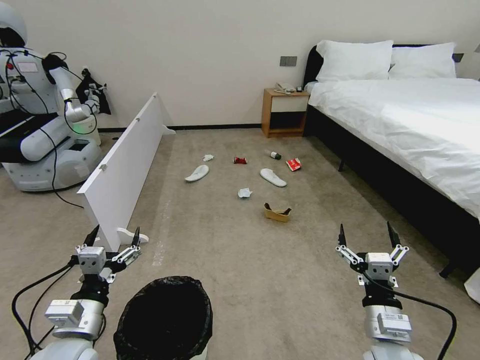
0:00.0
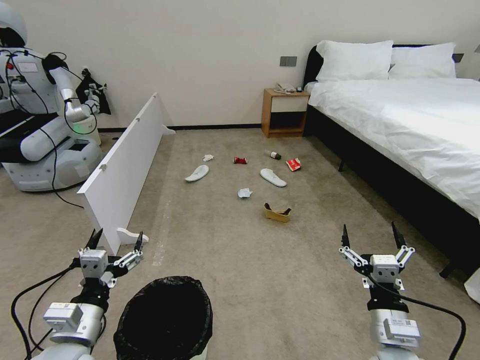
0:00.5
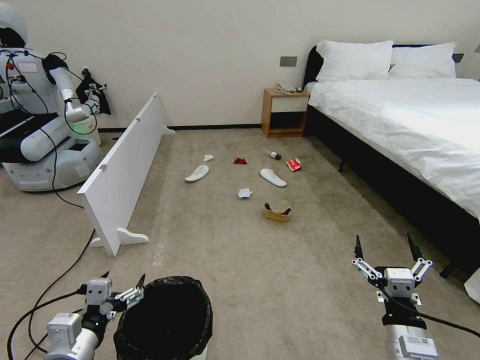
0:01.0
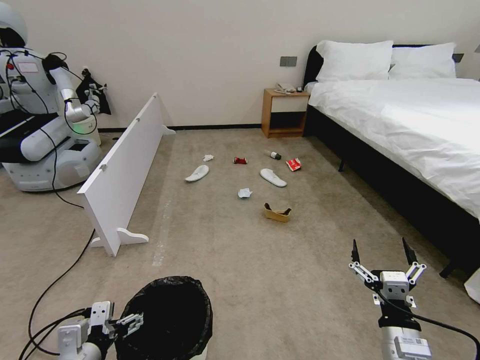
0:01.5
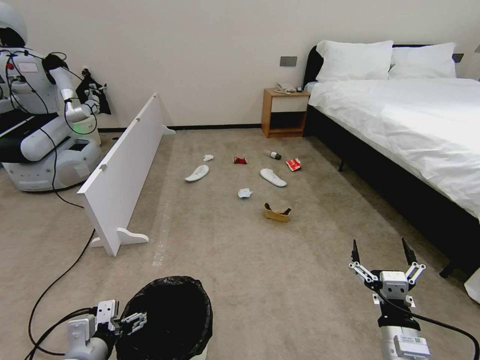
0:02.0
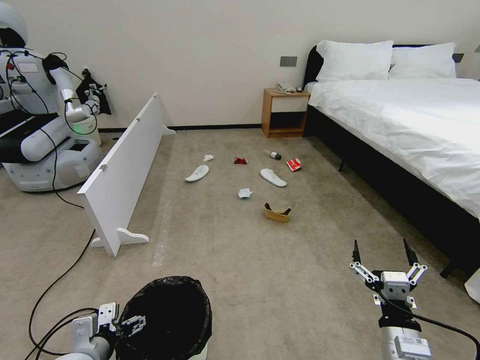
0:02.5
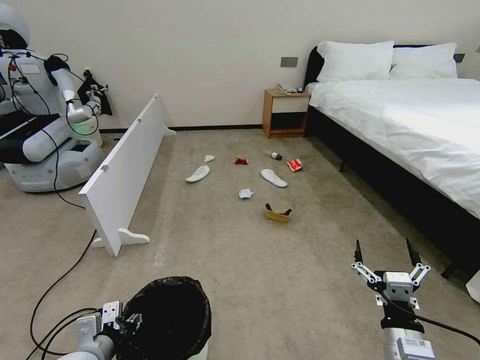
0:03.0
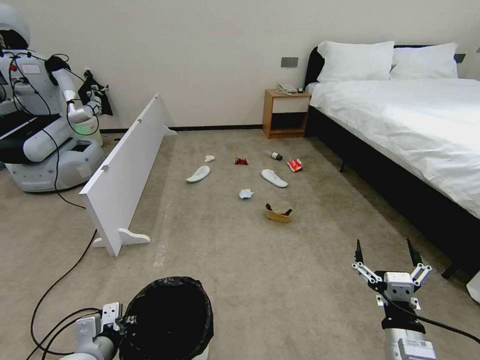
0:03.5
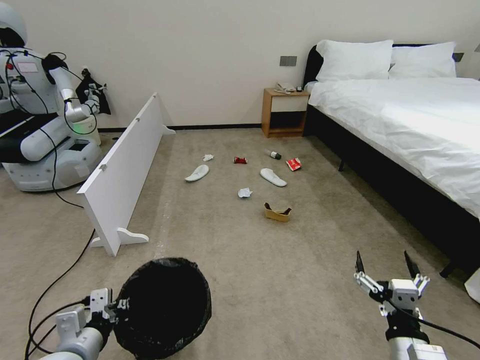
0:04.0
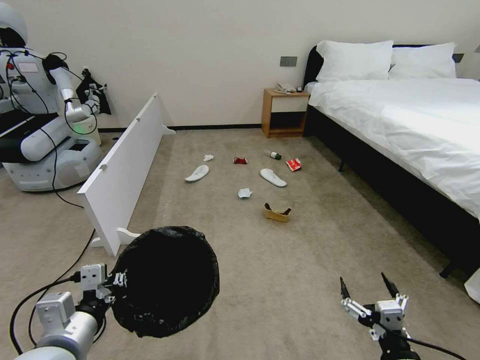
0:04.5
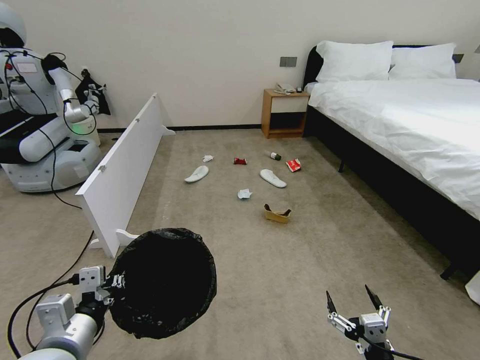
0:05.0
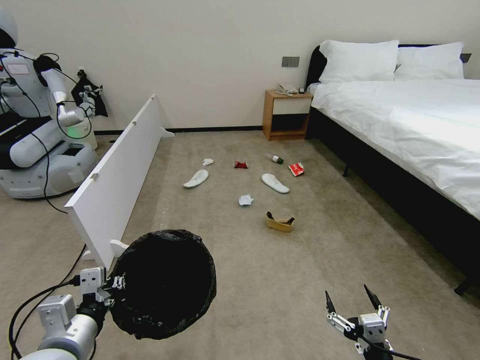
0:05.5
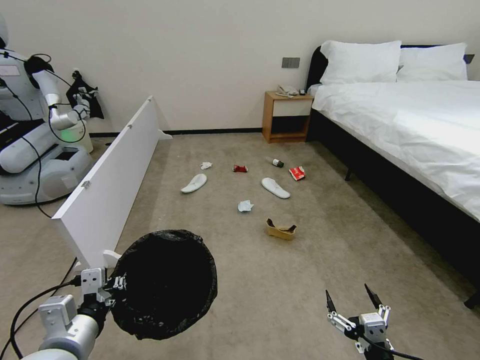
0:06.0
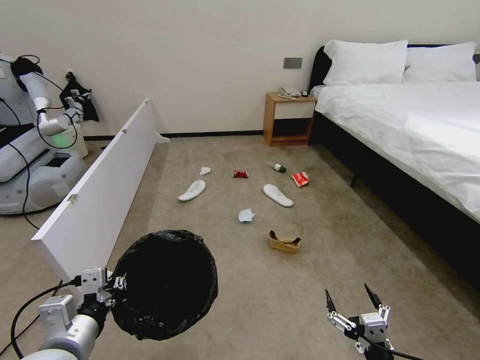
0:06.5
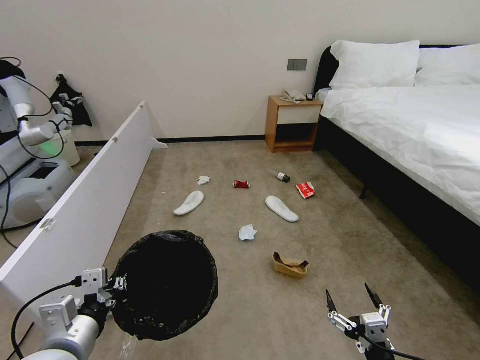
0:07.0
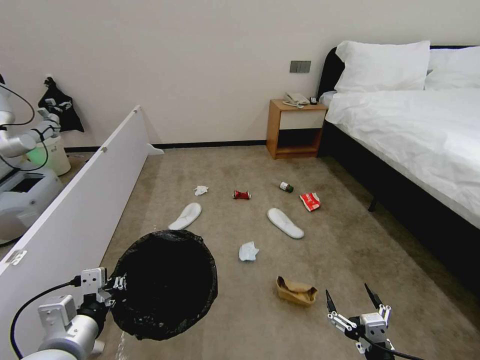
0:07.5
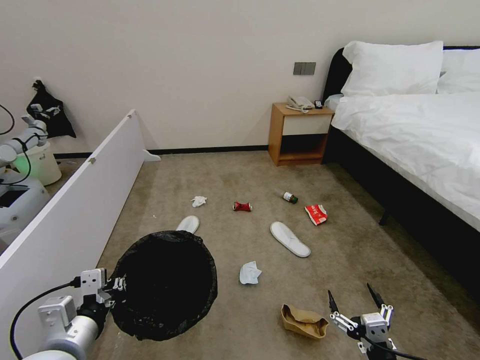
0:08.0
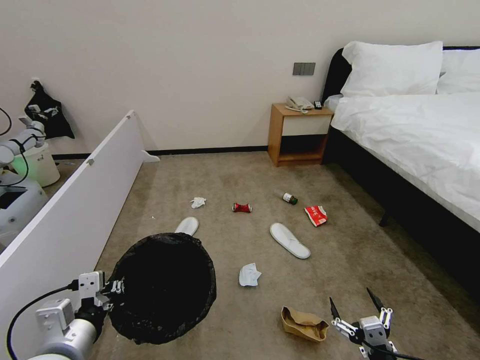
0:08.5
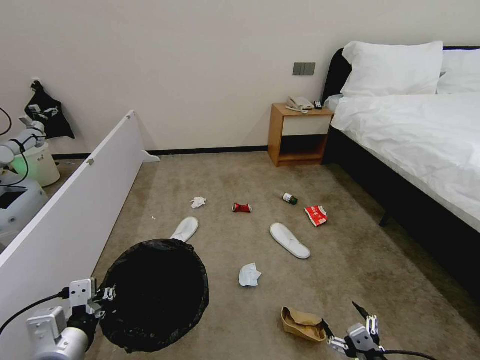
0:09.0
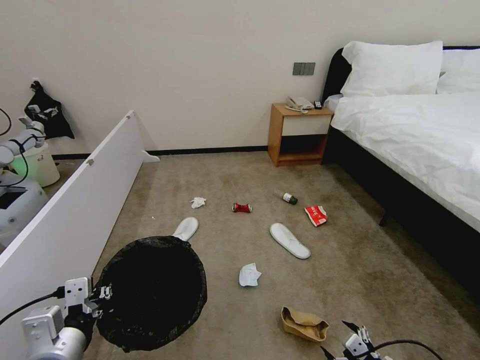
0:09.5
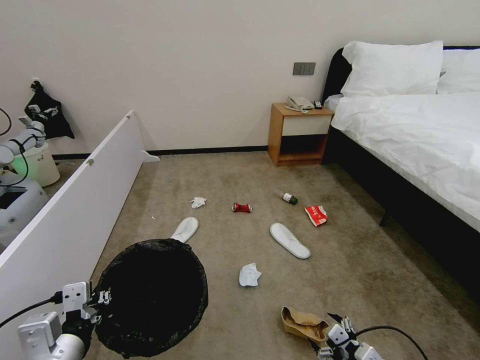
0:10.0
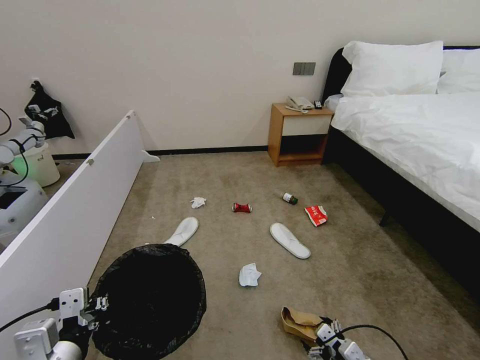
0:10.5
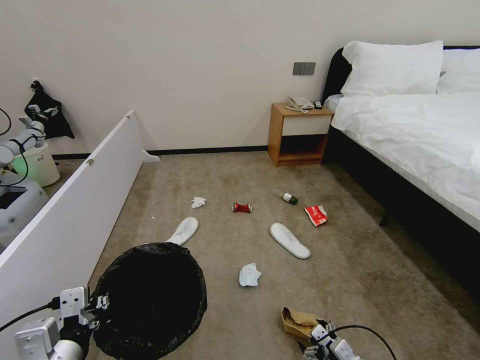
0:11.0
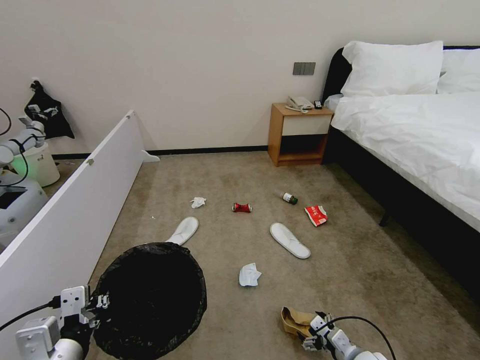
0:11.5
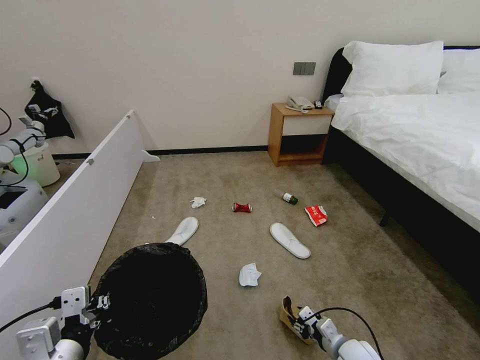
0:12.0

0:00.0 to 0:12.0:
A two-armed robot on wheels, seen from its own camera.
Task of the whole recording: Pick up the trash bin, then pick up the garbage from the floor and place it into the trash bin.
0:02.0 to 0:04.0: The left gripper closes.
0:04.0 to 0:06.0: The right gripper shifts some 5 cm downward, while the left gripper is displaced upward by approximately 5 cm.
0:08.0 to 0:10.0: The right gripper is displaced forward and to the right by approximately 10 cm.
0:10.0 to 0:12.0: The right gripper goes about 15 cm forward and downward, and closes.

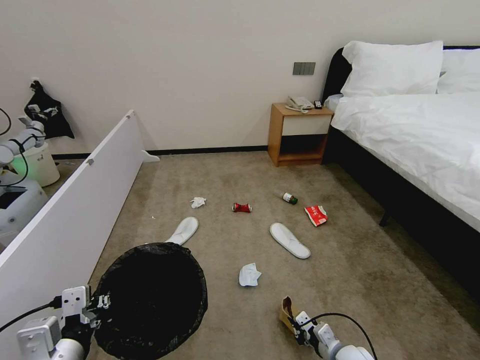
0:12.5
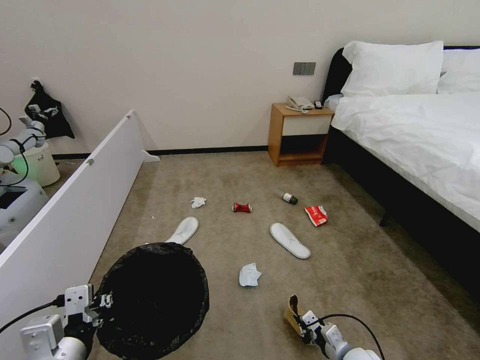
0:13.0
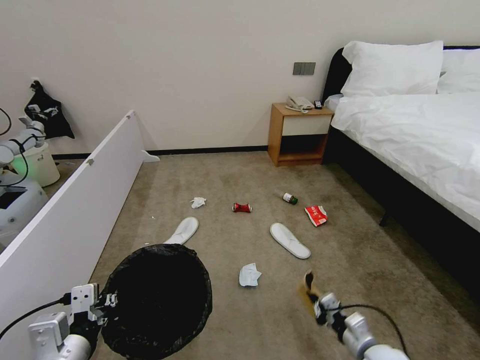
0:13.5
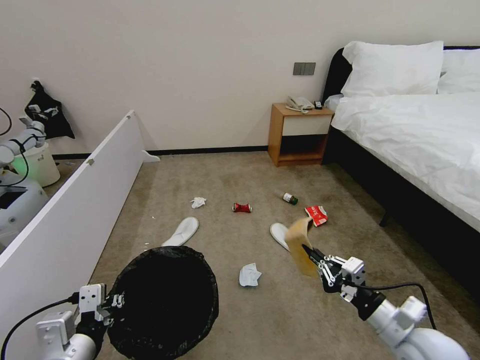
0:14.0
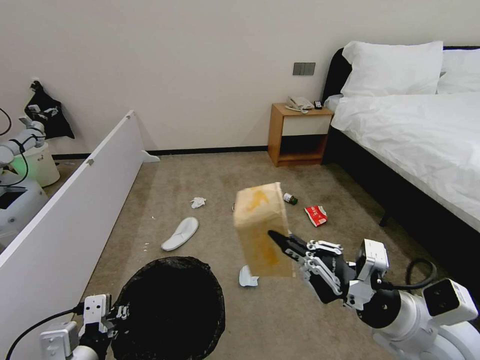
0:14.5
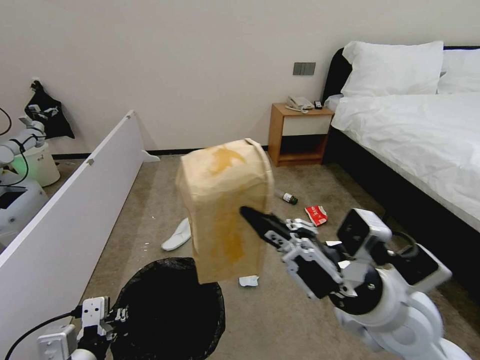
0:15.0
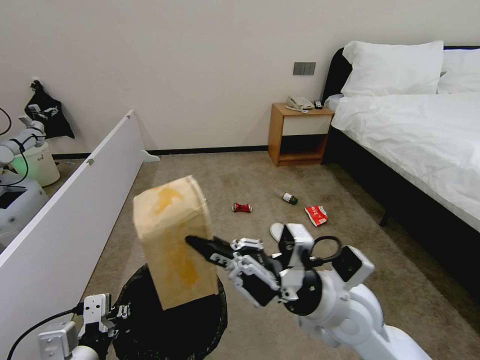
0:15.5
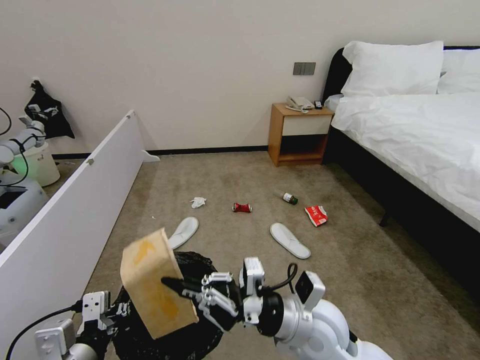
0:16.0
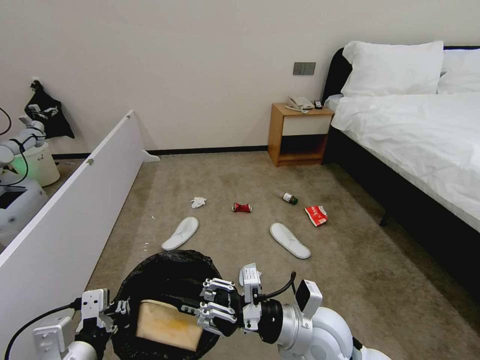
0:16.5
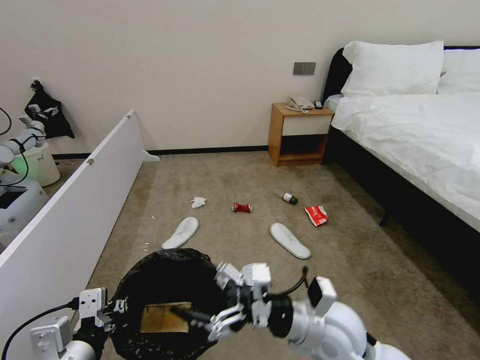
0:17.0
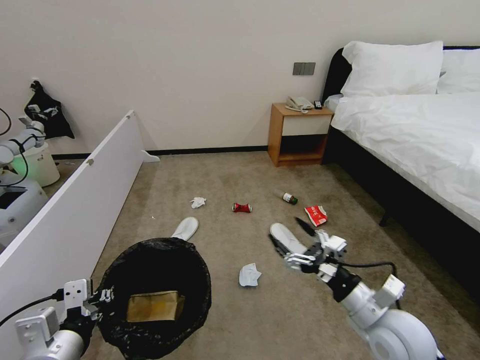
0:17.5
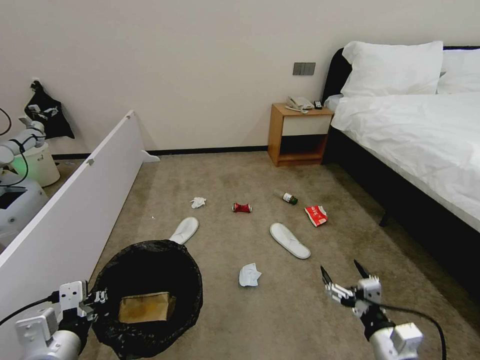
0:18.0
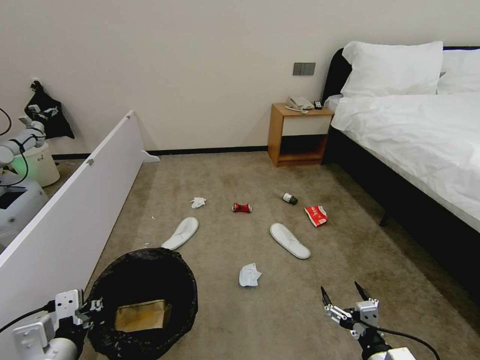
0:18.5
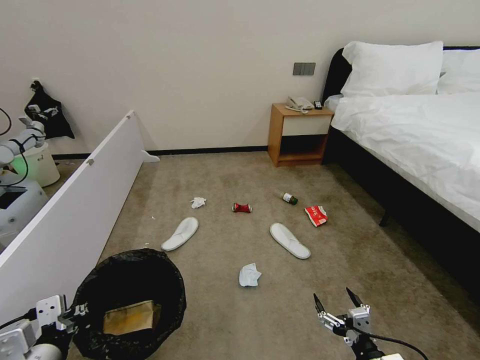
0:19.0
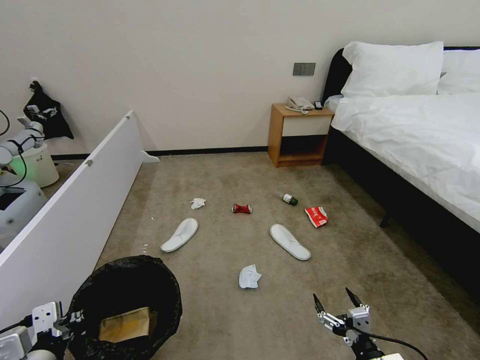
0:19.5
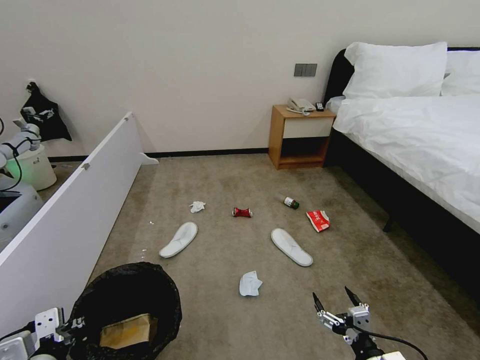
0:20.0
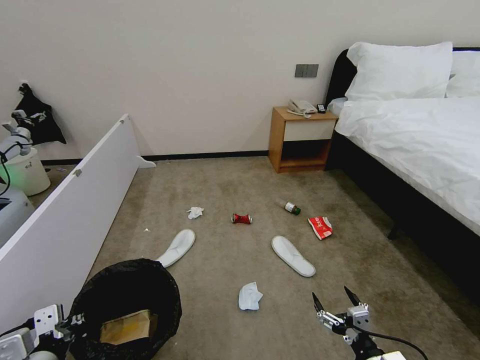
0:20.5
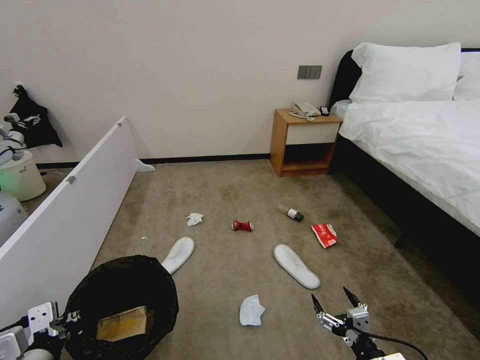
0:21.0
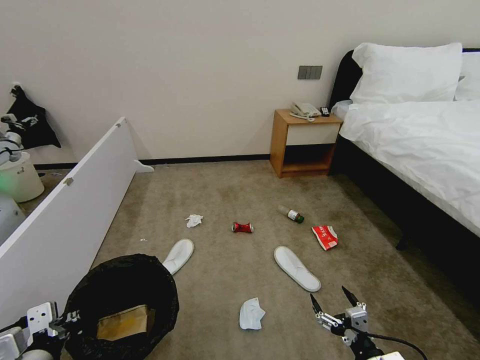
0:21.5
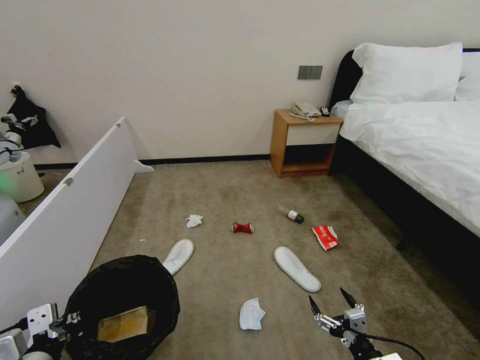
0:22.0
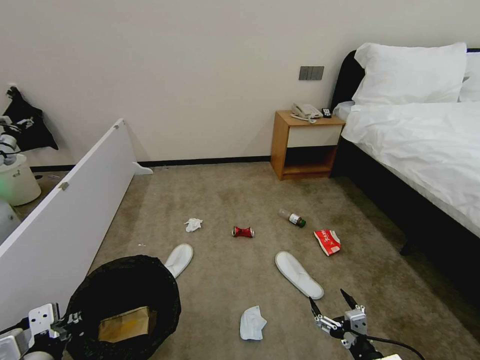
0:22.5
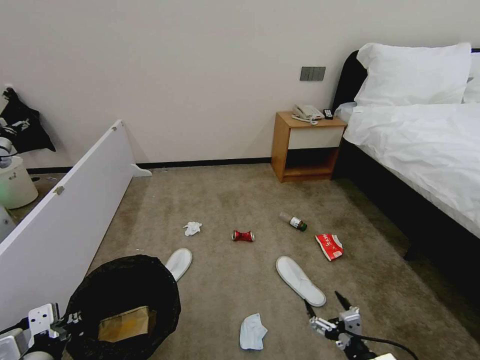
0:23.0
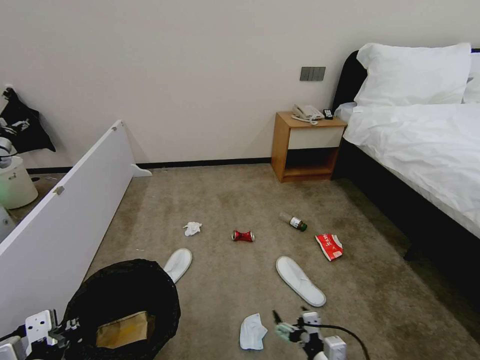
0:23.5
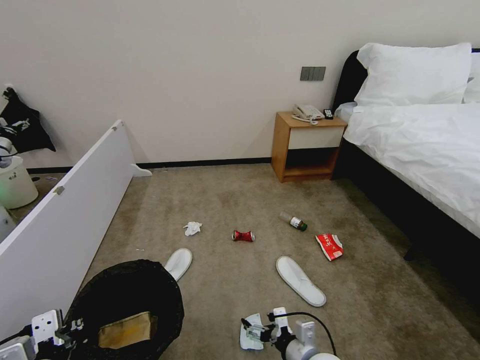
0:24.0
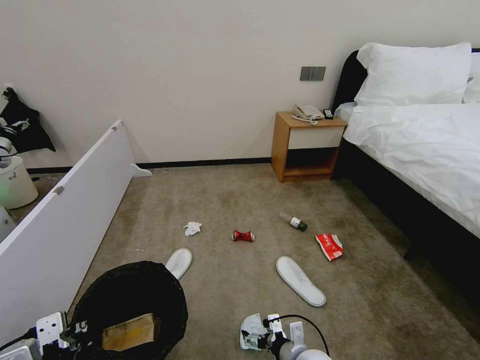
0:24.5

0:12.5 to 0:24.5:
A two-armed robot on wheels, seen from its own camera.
Task of the whole recording: Pick up the trash bin, then pick up the garbage from the floor and place it into the trash bin.
0:12.5 to 0:14.5: The right gripper is displaced upward by about 30 cm.
0:14.5 to 0:16.5: The right gripper travels to the left and downward by some 15 cm, and opens.
0:16.5 to 0:18.5: The right gripper goes some 20 cm to the right, downward and backward, and opens its fingers.
0:18.5 to 0:20.5: The grippers make only small movements.
0:20.5 to 0:22.5: Both grippers stay about where they are.
0:22.5 to 0:24.5: The right gripper shifts about 15 cm to the left and forward.

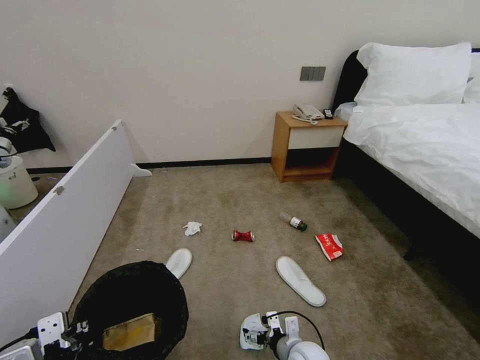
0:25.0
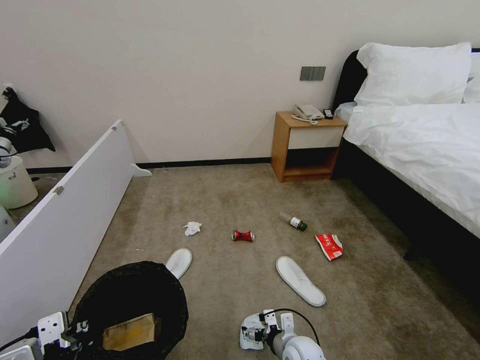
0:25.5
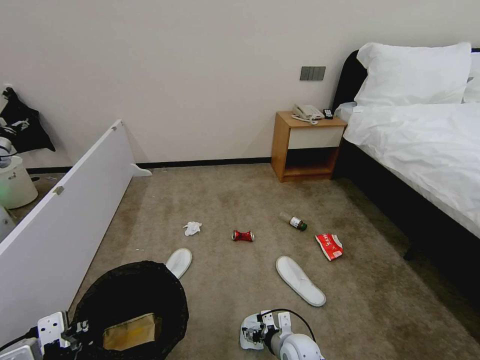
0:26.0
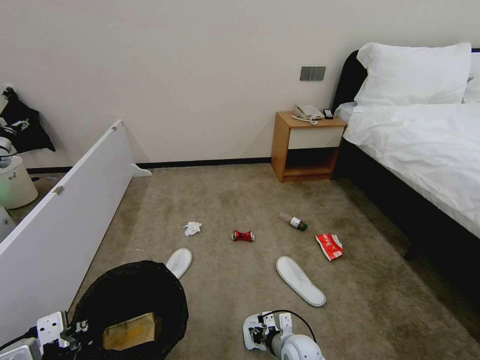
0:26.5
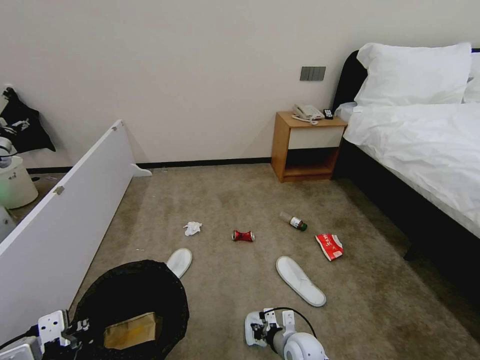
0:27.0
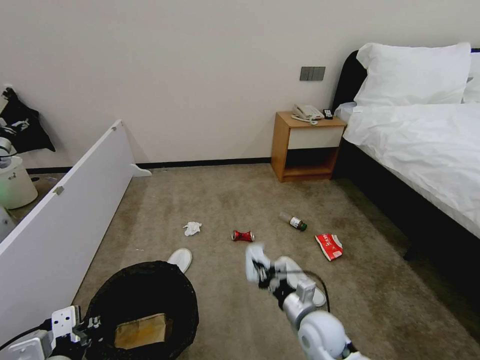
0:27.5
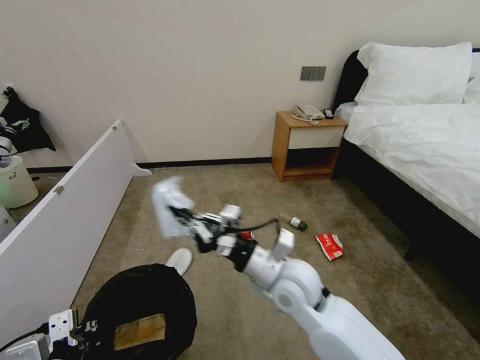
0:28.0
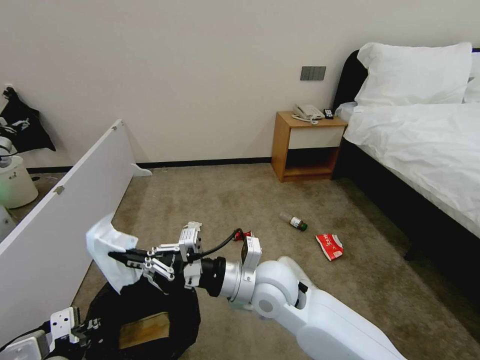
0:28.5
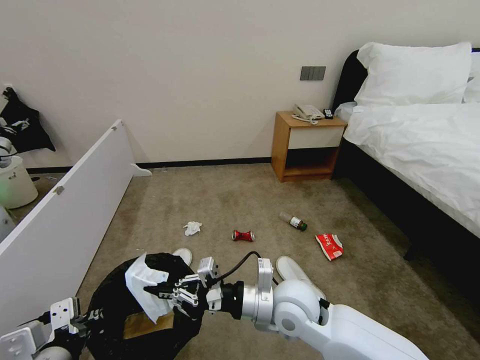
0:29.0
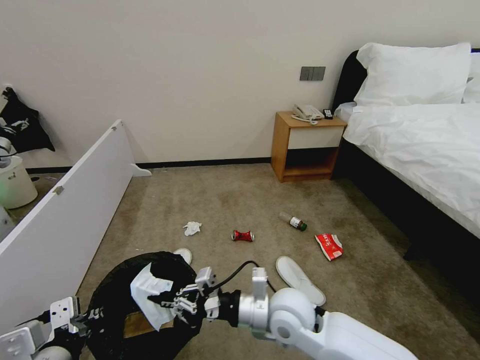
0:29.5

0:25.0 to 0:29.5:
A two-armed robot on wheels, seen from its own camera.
Task of the whole recording: Pick up the trash bin, then pick up the garbage from the floor and place it into the trash bin.
0:25.0 to 0:27.0: The right gripper changes place by approximately 5 cm, and closes its fingers.
0:27.0 to 0:29.5: The right gripper is displaced upward by some 20 cm.
